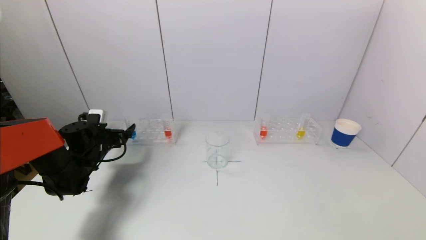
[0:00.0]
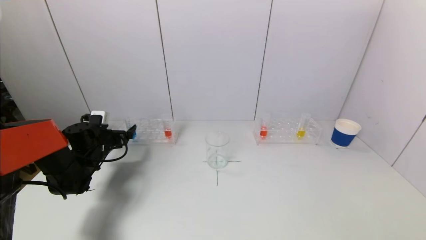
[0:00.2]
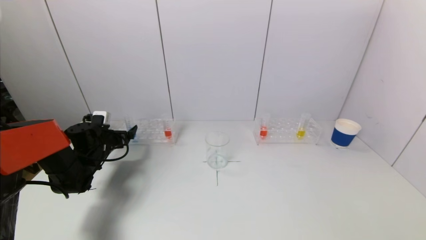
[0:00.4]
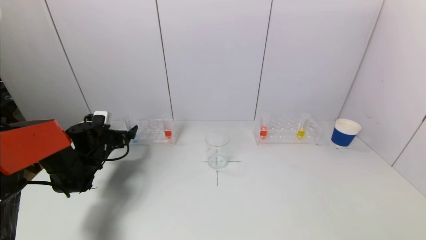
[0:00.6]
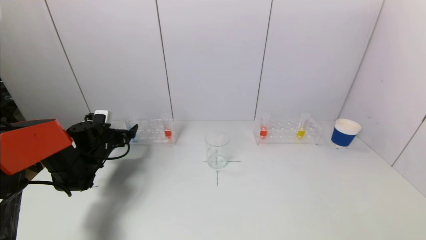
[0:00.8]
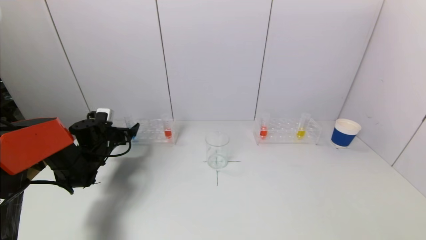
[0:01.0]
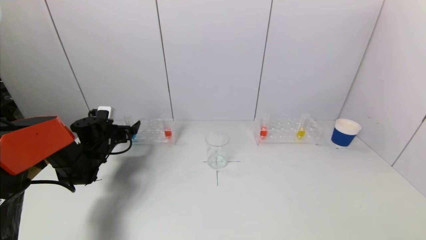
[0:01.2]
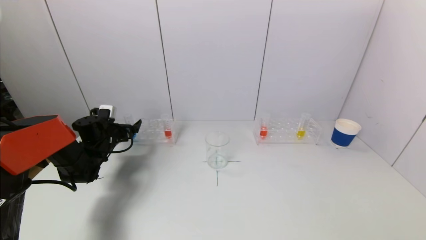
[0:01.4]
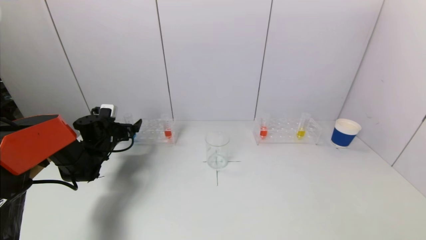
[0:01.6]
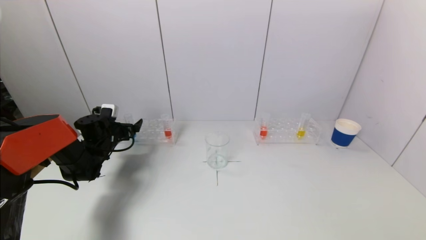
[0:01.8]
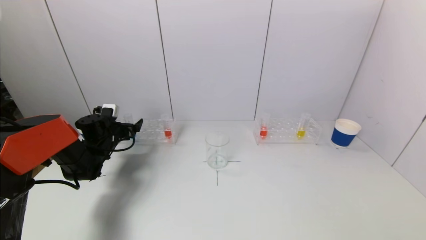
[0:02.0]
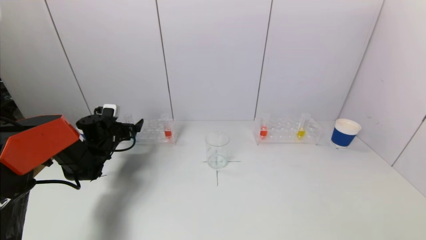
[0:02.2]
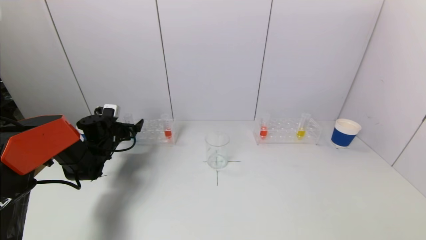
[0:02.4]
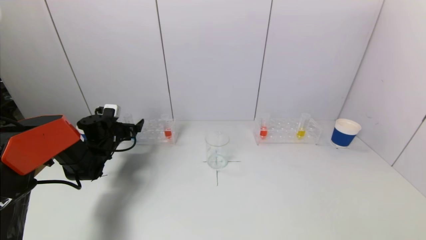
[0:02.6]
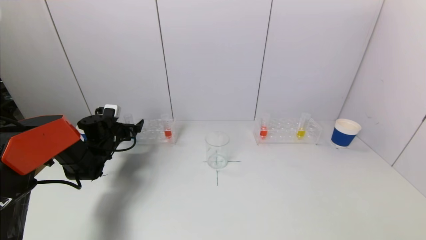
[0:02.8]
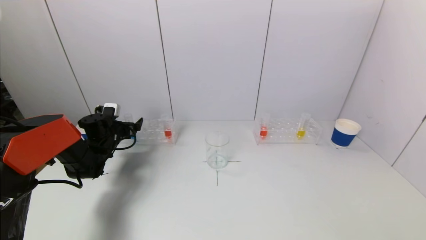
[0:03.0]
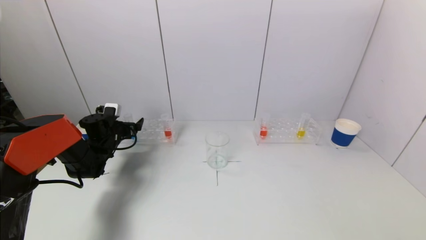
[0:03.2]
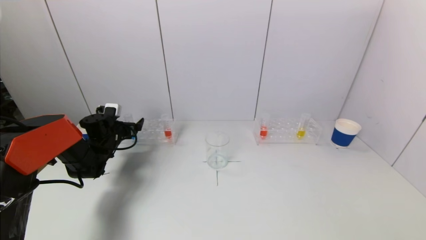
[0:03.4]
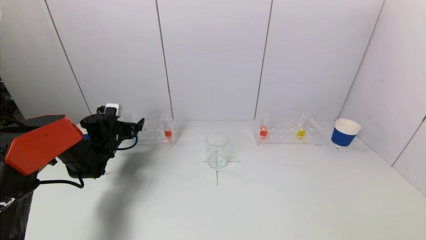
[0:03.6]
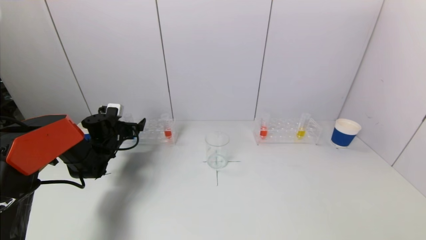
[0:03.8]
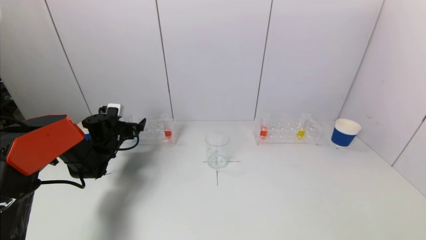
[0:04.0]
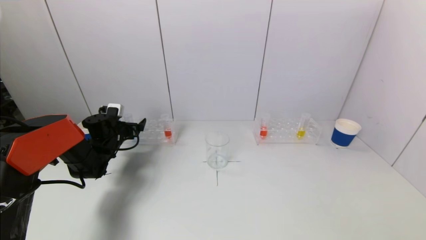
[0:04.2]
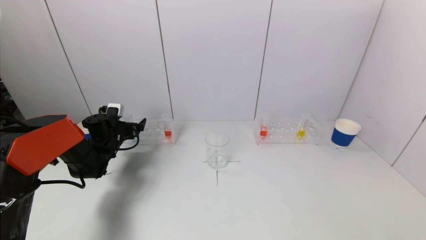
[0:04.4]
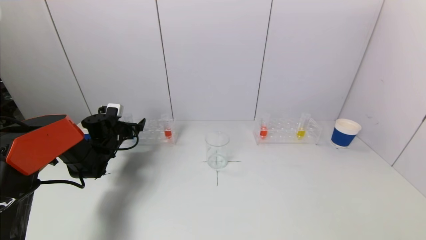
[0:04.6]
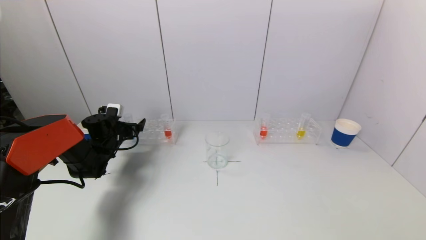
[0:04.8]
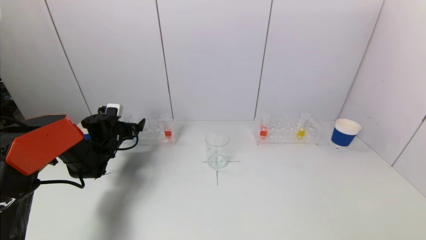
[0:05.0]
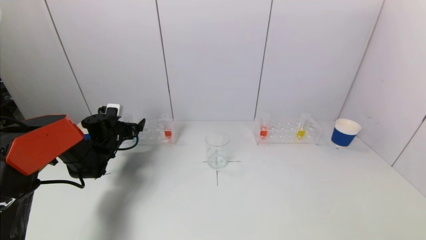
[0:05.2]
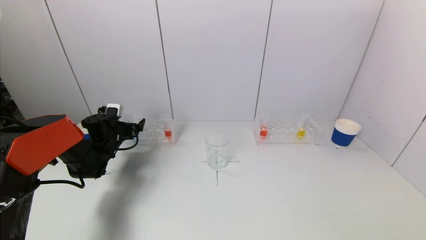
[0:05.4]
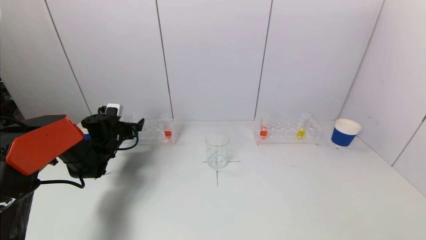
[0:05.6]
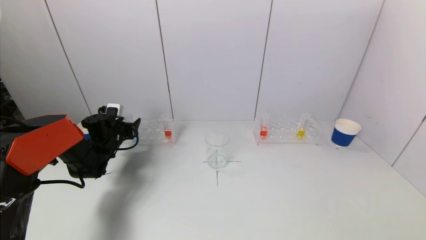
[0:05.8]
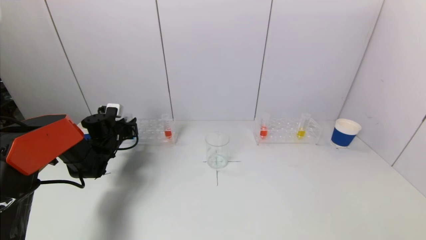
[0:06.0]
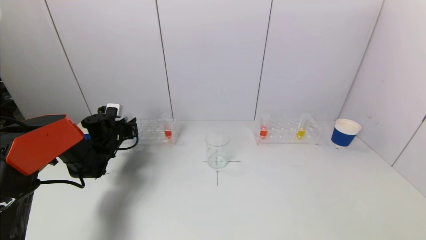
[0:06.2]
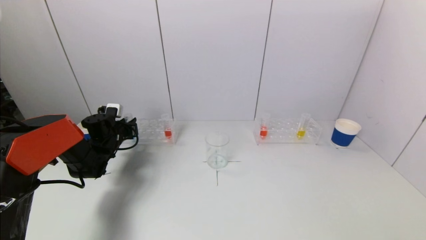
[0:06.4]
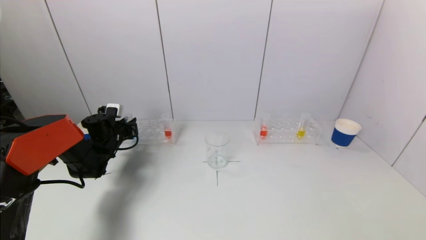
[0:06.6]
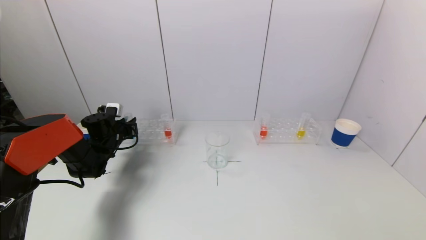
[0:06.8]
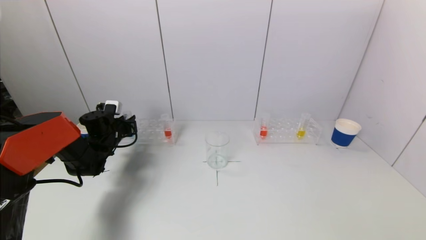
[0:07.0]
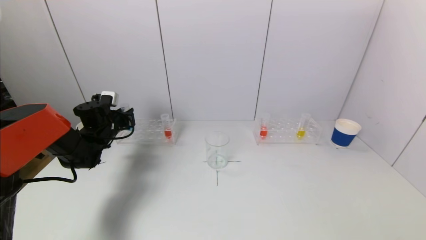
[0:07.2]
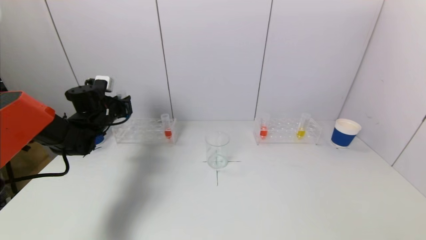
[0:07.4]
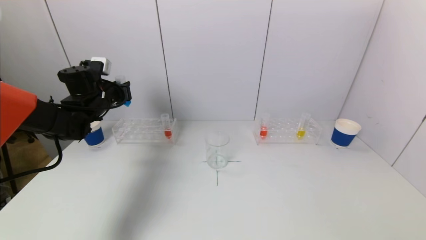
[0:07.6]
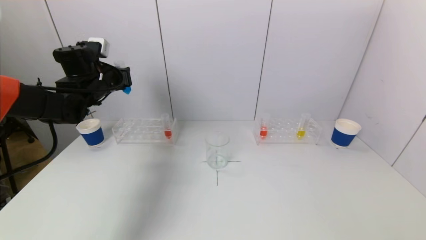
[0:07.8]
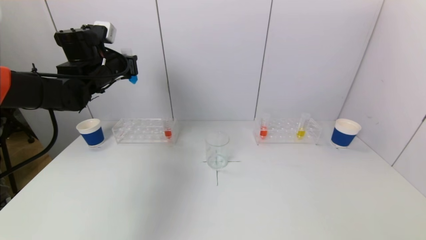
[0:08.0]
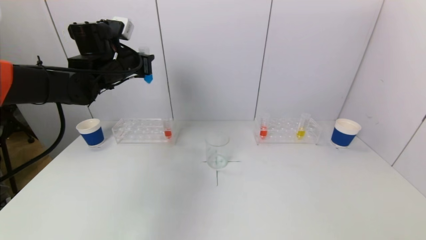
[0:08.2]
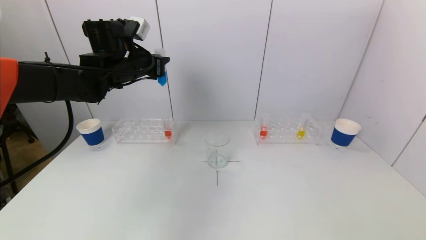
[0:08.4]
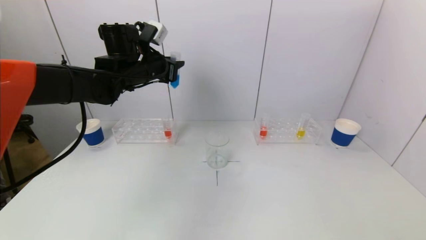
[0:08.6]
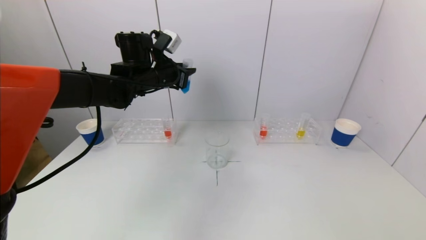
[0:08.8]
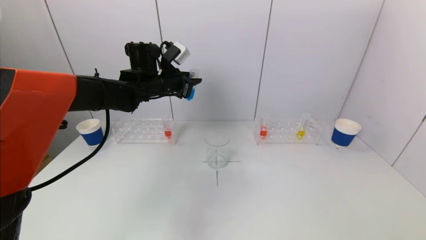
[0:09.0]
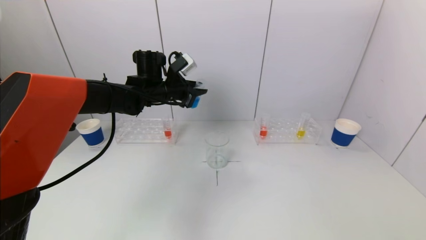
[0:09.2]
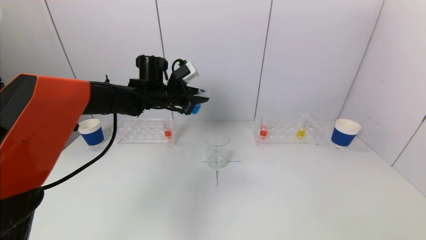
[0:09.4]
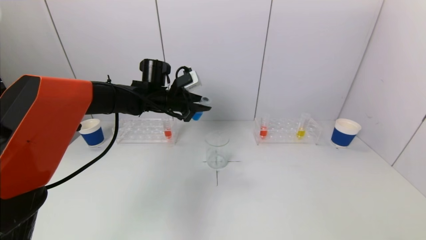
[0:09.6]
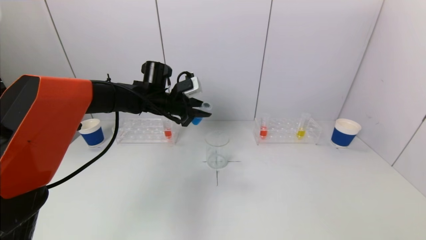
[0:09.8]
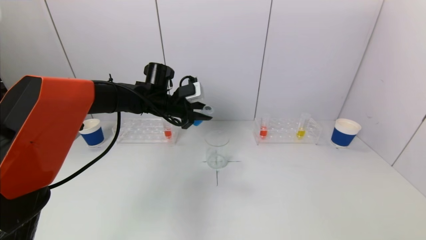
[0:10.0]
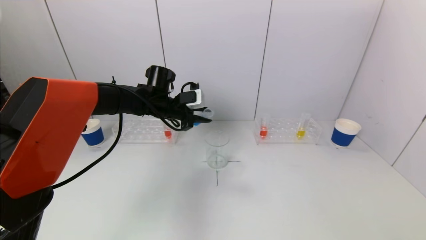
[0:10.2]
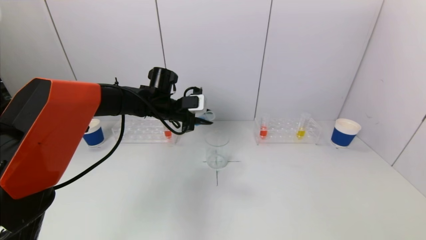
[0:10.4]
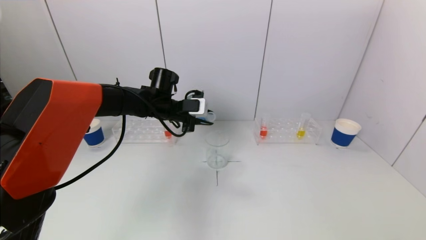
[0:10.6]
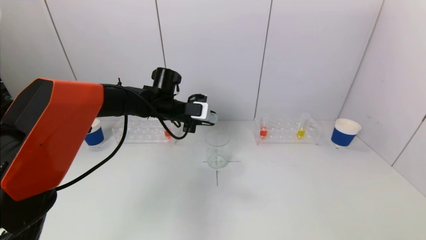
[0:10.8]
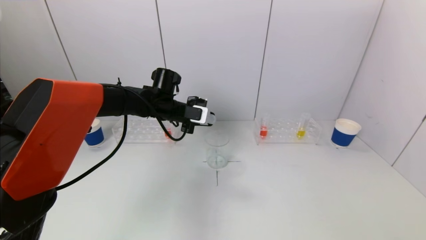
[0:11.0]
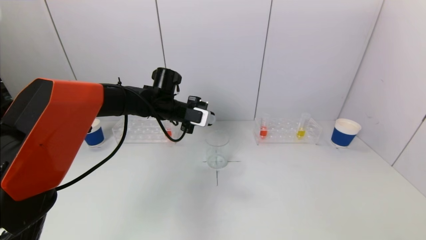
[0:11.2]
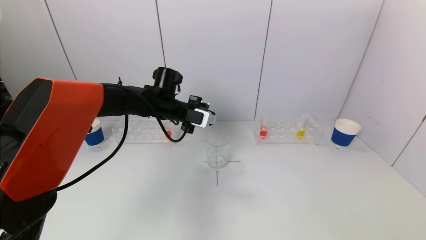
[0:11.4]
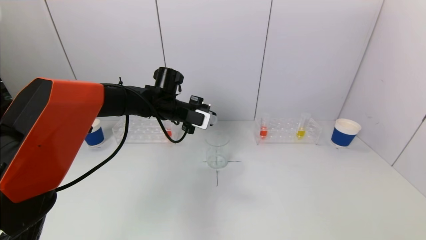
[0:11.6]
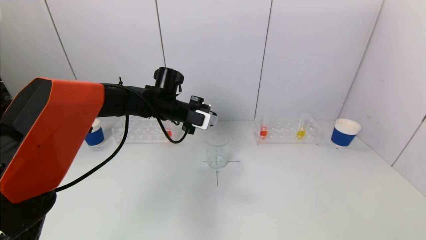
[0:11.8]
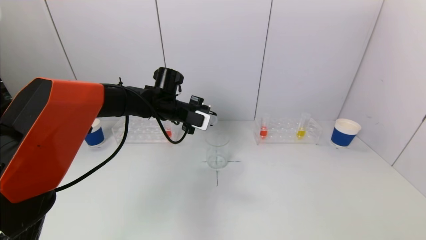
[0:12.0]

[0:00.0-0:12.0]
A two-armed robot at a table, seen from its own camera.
Task of the whole recording: pick up a test tube with pigment on left test tube rack and a test tube with pigment on right test tube rack by grippers and pour them into the beaker.
Step, 0:00.0 to 0:06.4: Grasp the blue reagent with the left gripper.
0:00.0 to 0:01.6: The grippers move only a little.
0:01.6 to 0:03.0: Both grippers stay put.
0:03.0 to 0:04.4: Both grippers stay about where they are.
0:04.4 to 0:06.0: The left gripper closes its fingers.
0:06.0 to 0:07.6: The left gripper is displaced upward by about 15 cm.
0:07.6 to 0:09.0: The left gripper heads to the right, covering about 15 cm.
0:09.0 to 0:10.4: The left gripper goes roughly 5 cm downward.

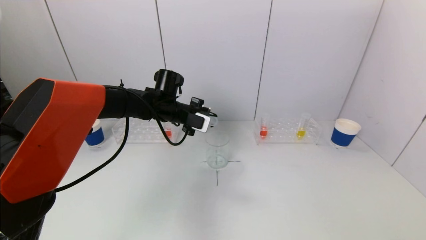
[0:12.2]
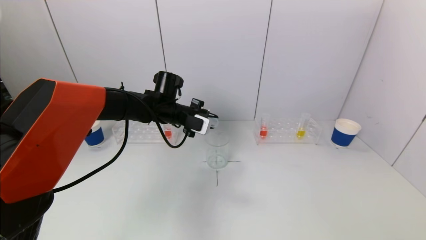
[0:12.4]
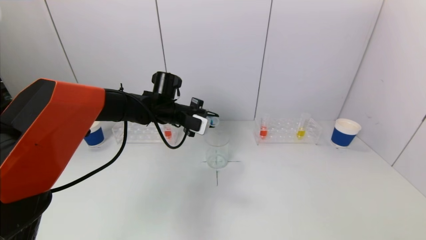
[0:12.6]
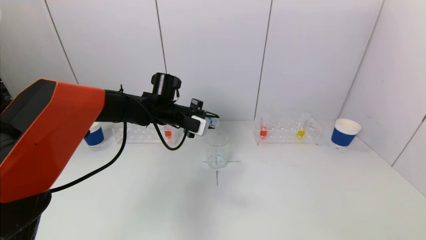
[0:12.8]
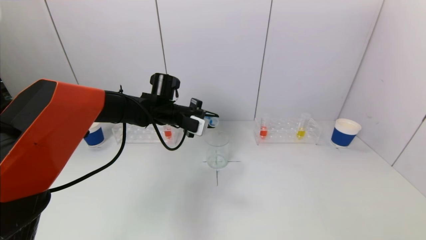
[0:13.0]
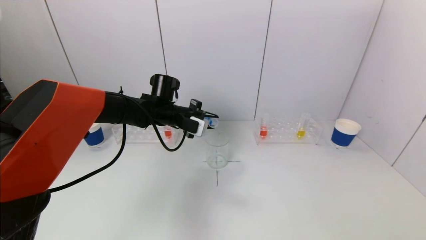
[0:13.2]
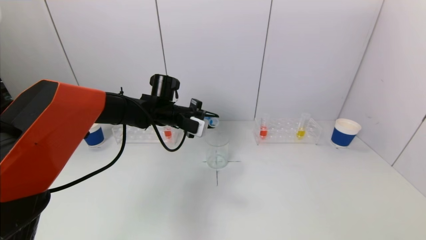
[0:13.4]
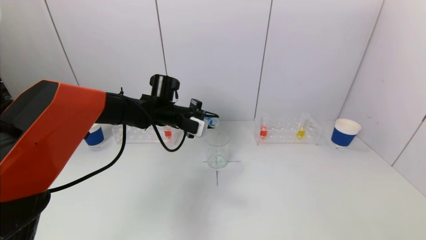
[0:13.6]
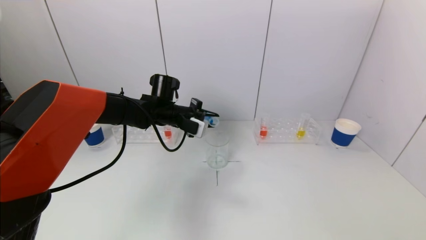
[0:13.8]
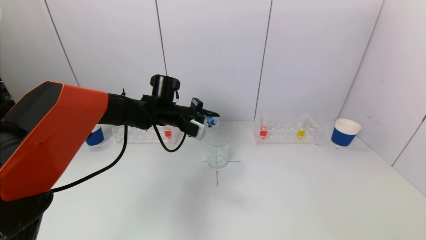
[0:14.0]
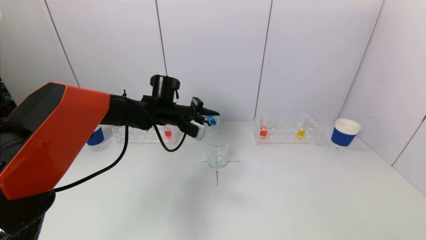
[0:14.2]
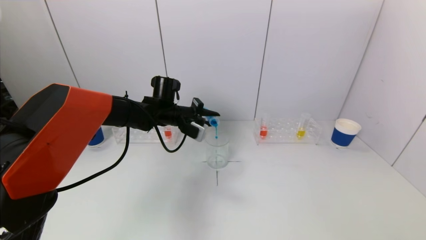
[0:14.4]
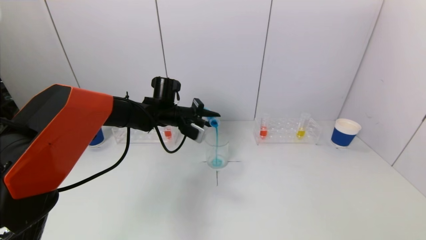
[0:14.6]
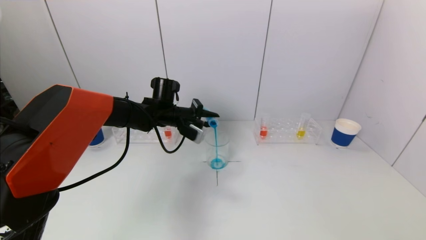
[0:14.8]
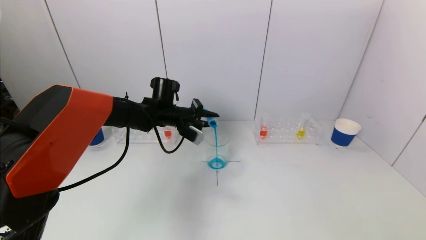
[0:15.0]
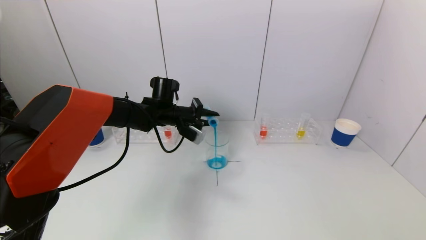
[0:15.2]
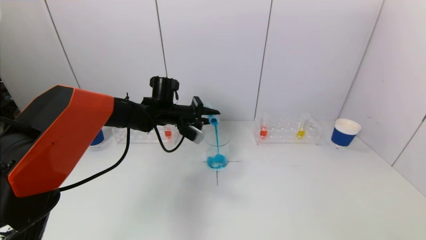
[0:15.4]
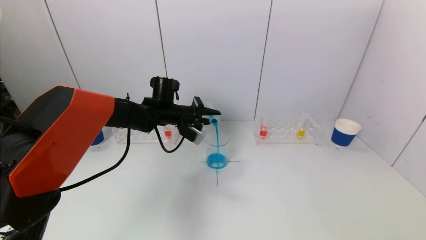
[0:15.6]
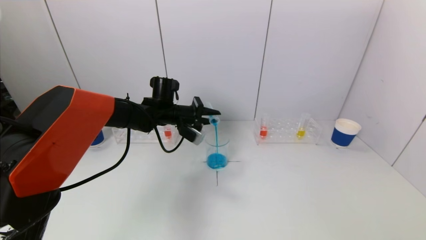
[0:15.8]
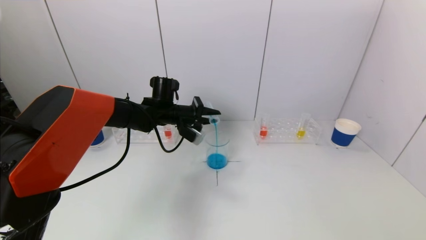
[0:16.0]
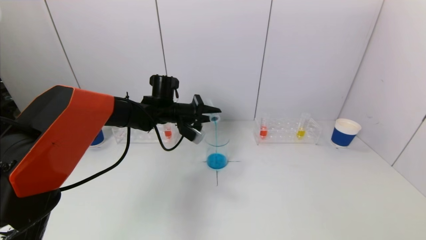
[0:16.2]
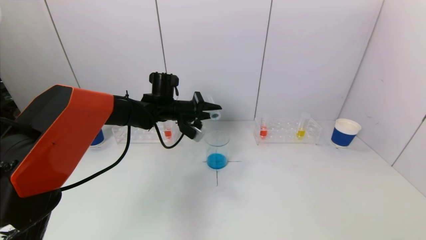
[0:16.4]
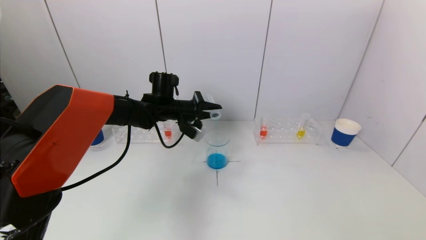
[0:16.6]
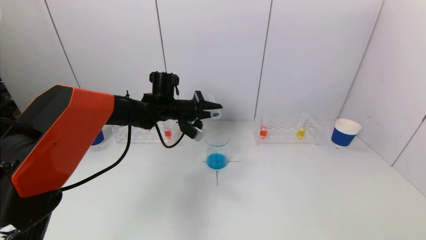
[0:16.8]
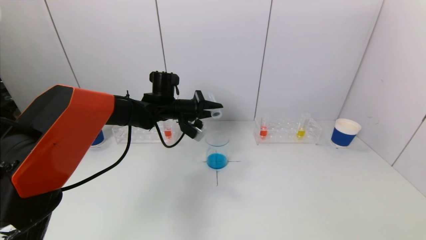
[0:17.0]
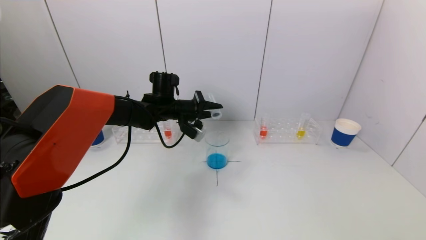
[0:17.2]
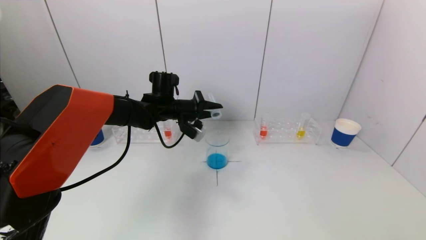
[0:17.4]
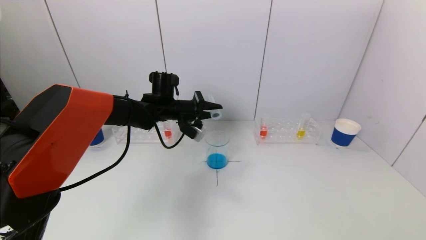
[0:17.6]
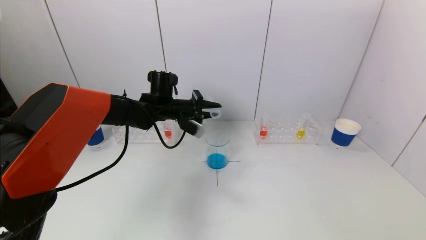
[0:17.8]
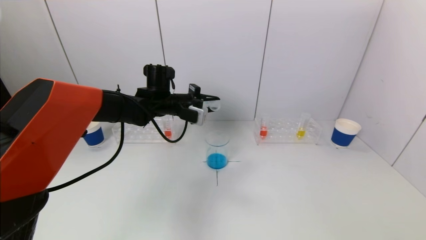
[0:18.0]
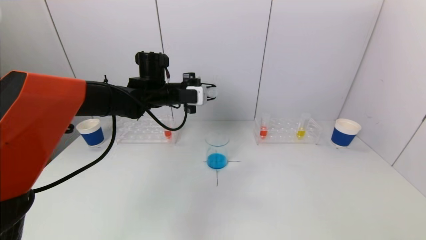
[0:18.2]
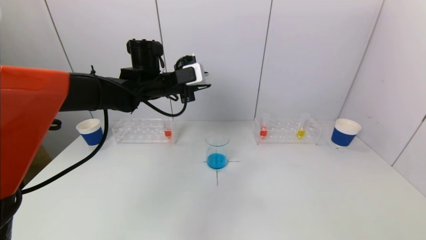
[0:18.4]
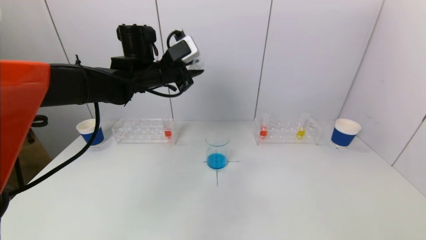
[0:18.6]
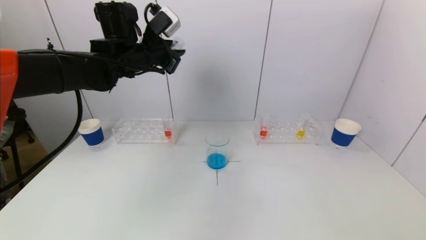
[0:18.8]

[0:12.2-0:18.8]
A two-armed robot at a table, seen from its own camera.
Task of the whole recording: pick up a test tube with pigment on left test tube rack and a test tube with pigment on right test tube rack by grippers and pour them into the beaker.
Step, 0:12.2 to 0:16.8: Pour the blue reagent into the graduated cylinder with the left gripper.
0:12.2 to 0:13.8: The grippers move only a little.
0:13.8 to 0:15.4: The grippers make only small movements.
0:15.4 to 0:17.2: The grippers stay close to where they were, moving slightly.
0:17.2 to 0:18.8: The left gripper is displaced upward by roughly 15 cm.
